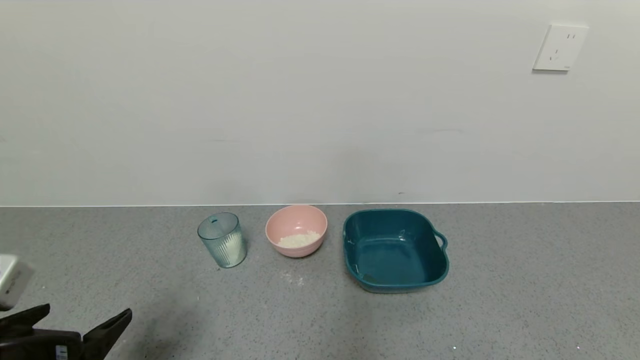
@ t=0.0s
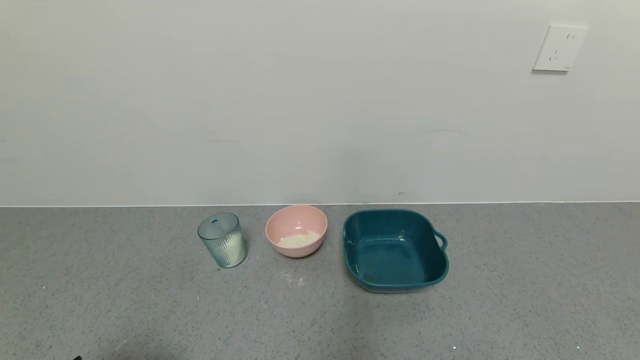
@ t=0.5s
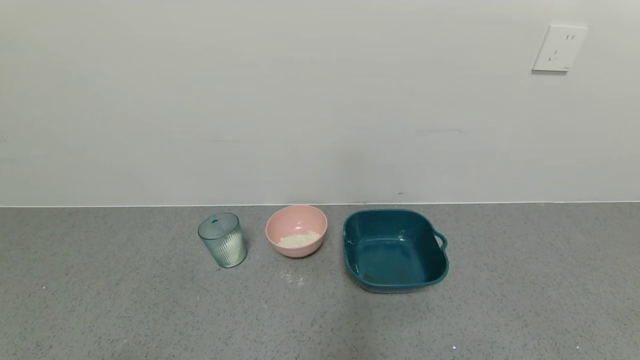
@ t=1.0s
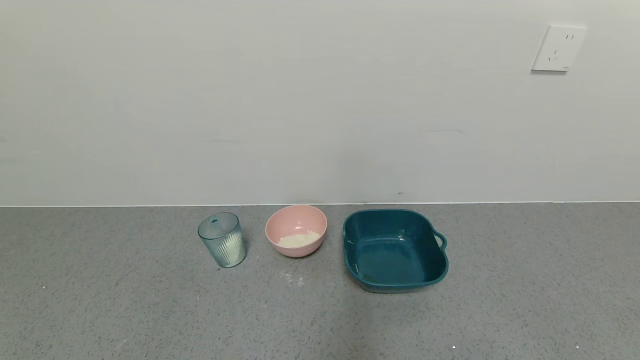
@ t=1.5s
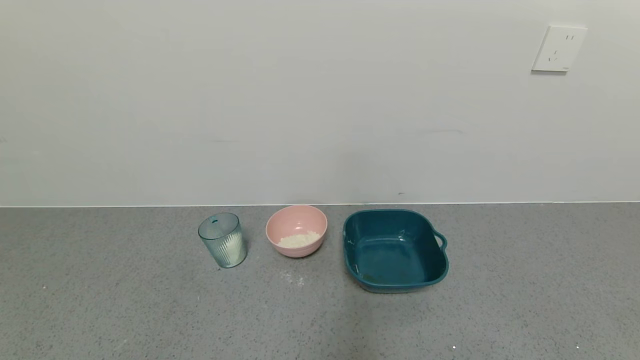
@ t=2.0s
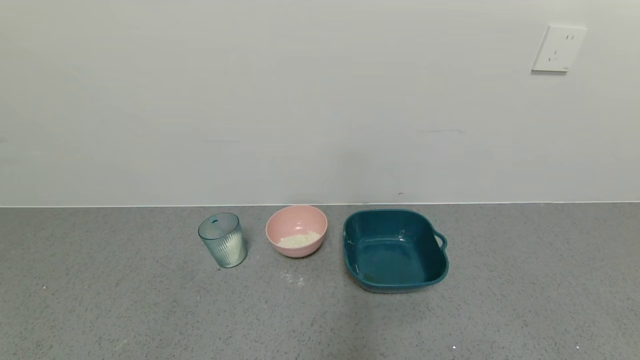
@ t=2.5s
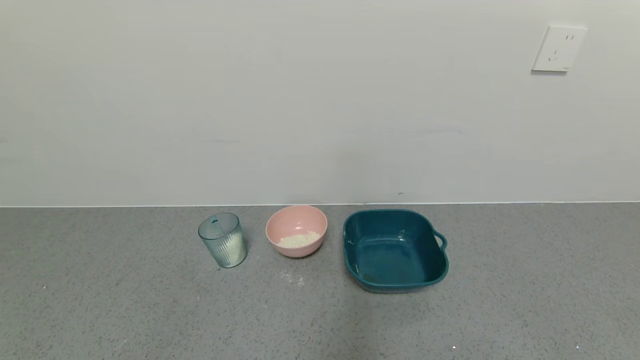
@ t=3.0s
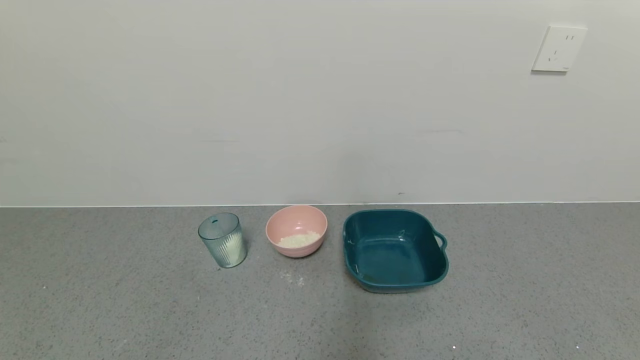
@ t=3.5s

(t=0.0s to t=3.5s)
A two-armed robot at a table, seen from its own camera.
Task of the whole recording: use a gripper to pick up the cup and pour the powder into a bowl or tray.
t=0.0s - t=2.0s: The left gripper moves backward, roughly 15 cm.
